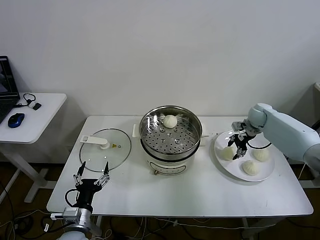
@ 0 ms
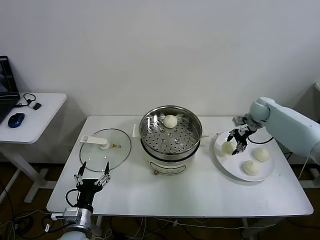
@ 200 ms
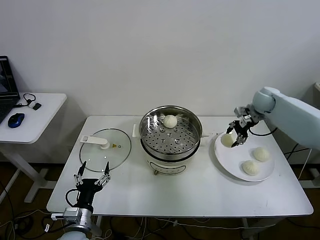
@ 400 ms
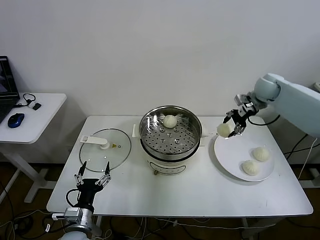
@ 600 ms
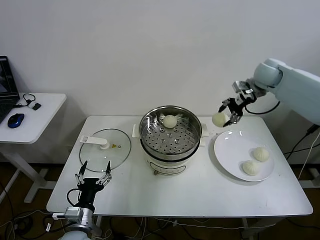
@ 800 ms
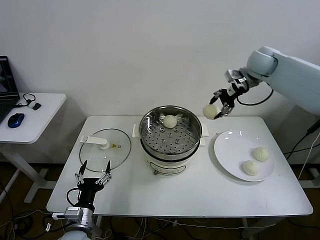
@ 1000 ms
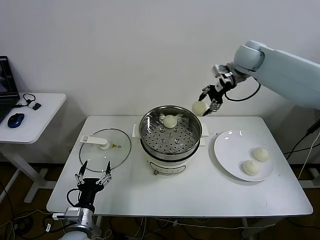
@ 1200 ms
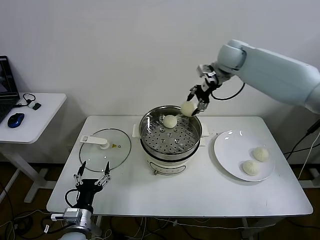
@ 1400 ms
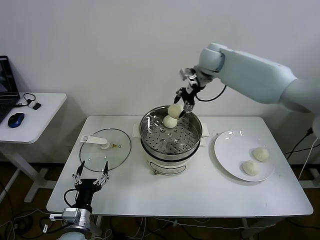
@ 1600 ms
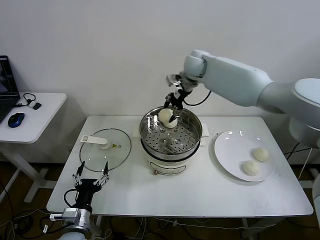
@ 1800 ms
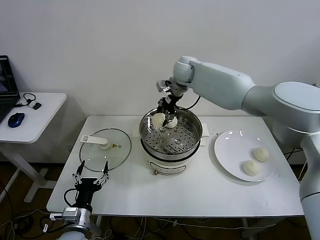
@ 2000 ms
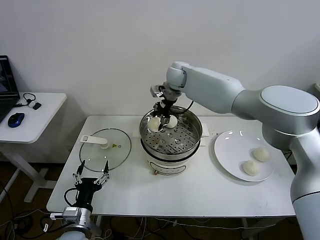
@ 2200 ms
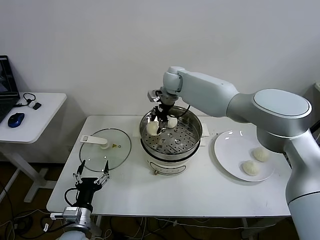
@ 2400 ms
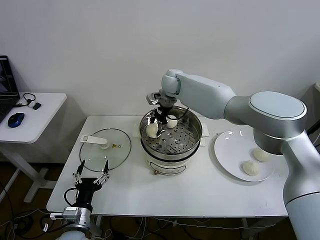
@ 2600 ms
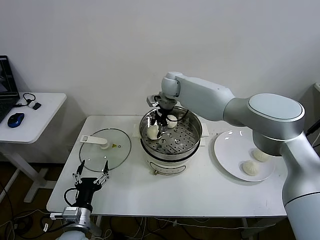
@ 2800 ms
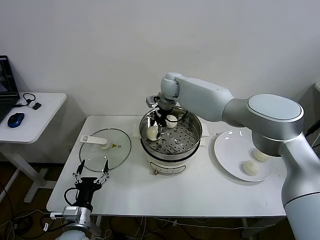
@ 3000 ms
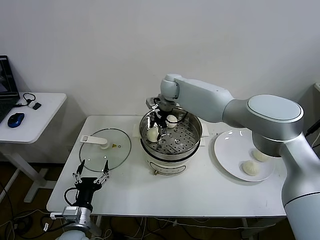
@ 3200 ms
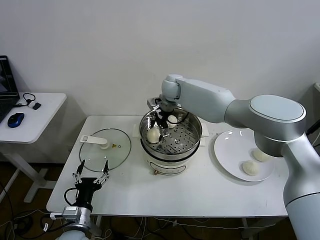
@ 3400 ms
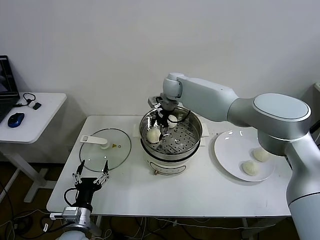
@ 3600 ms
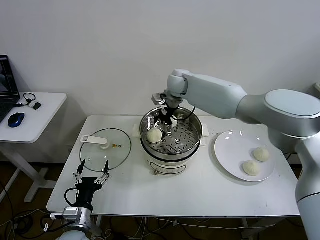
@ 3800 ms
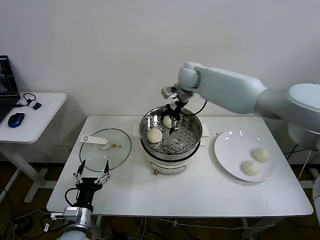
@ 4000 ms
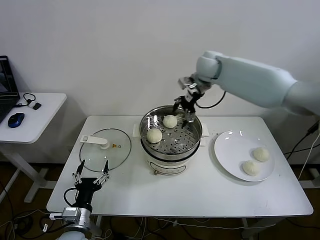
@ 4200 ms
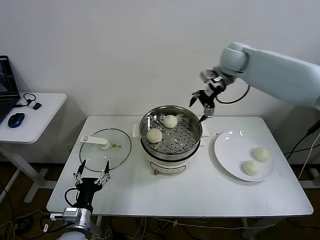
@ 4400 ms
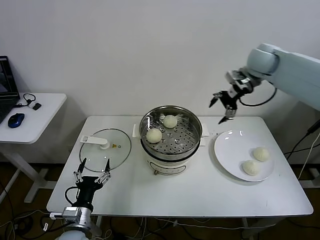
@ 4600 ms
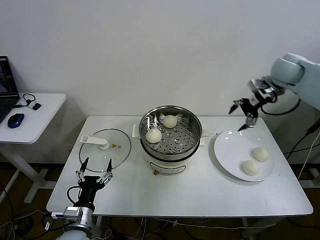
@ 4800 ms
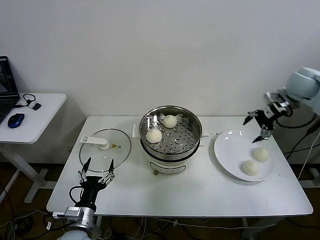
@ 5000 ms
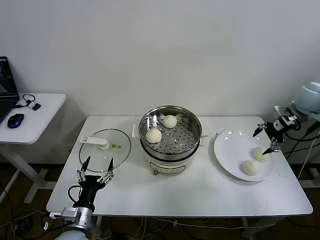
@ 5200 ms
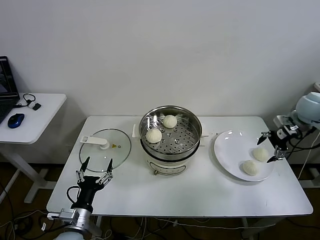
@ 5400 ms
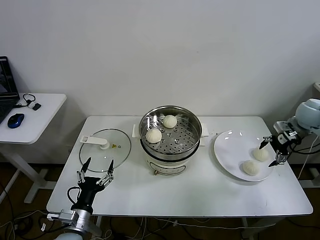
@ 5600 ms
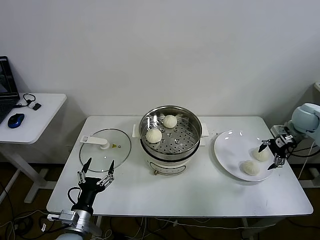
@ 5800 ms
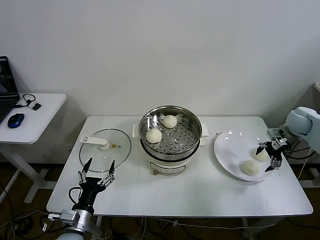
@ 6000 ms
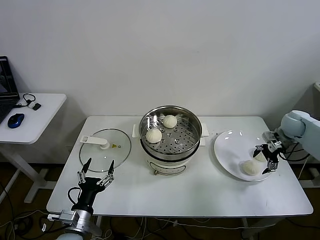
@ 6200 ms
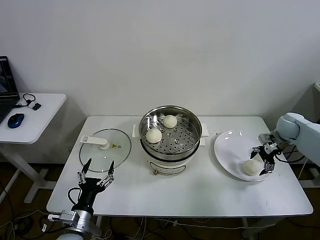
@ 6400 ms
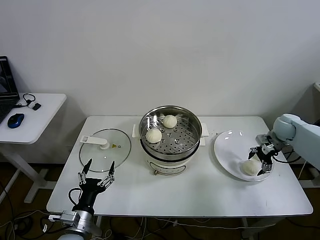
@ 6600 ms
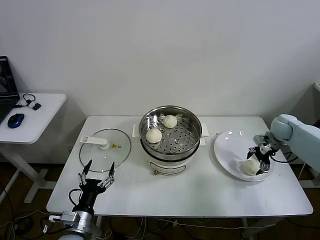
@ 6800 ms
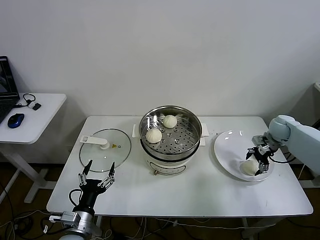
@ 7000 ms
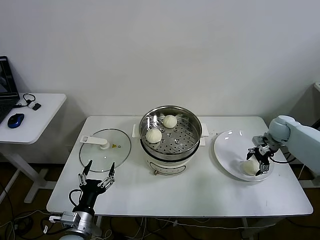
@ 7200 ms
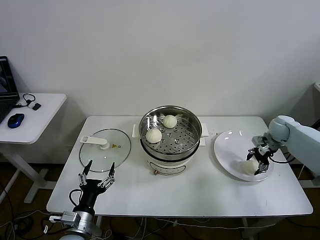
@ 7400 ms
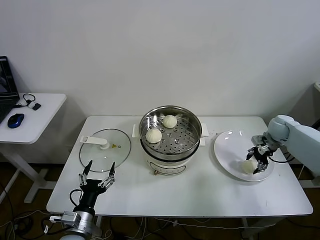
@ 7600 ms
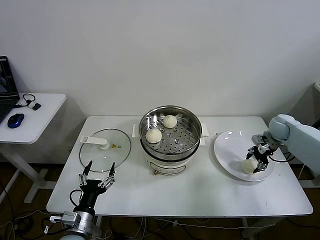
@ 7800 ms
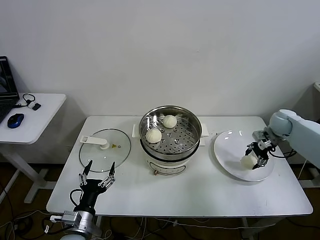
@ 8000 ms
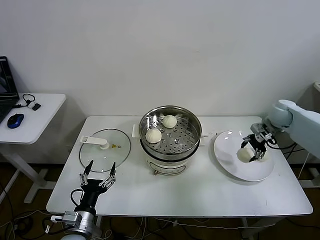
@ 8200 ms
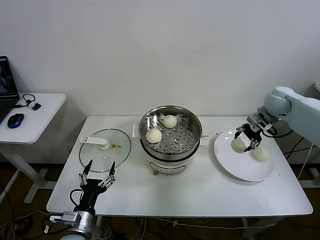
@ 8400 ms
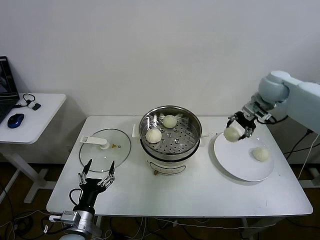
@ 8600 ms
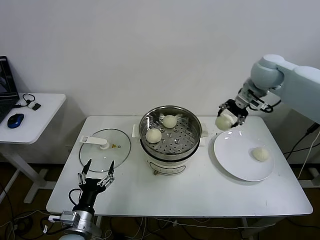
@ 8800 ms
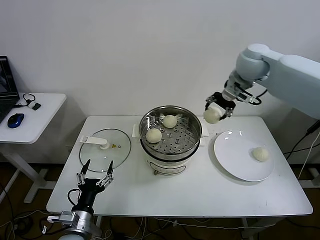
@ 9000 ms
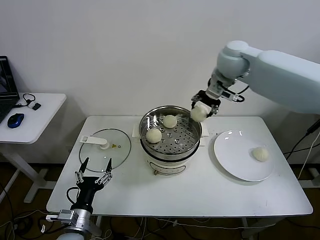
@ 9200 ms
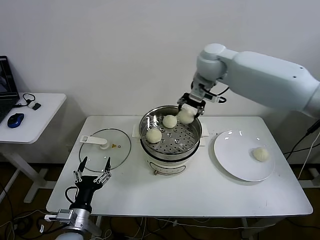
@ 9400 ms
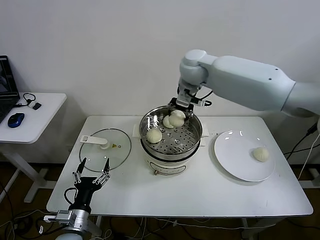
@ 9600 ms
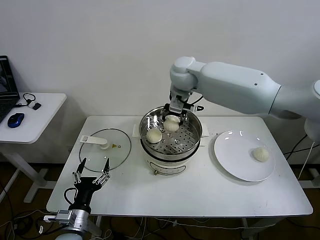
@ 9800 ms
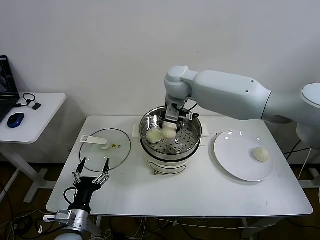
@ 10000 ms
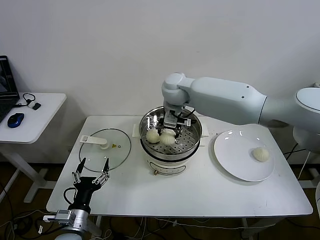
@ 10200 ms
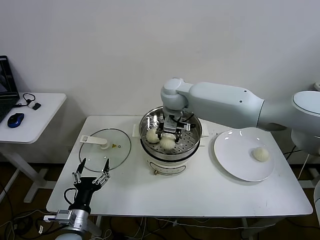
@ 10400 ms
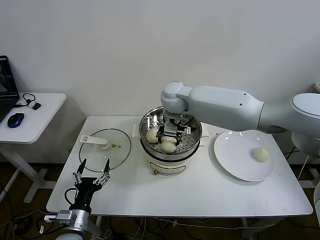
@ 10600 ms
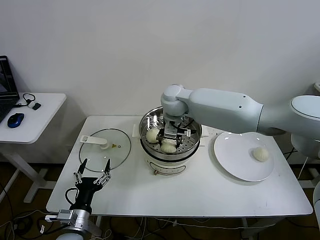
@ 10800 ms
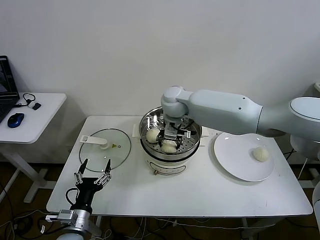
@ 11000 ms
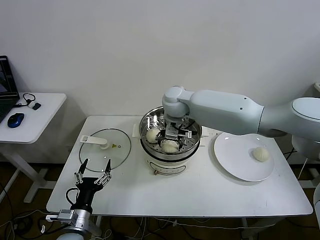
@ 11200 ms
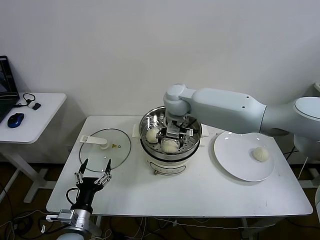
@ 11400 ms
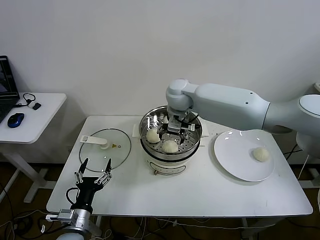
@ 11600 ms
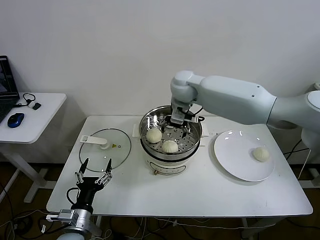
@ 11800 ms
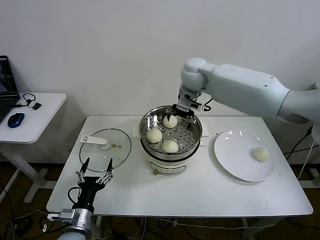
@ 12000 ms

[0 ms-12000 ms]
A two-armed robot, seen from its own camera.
Step, 0 ms to 3600 ms: Place the baozi on the steamer with right gripper.
Step, 3800 ms to 7800 ms: Grasp the baozi in the plate with right gripper.
Step, 8000 ms to 11600 ms: Place the baozi on the steamer with right gripper.
0 ms to 1600 ms: The right gripper heads to the left and upward, covering roughly 30 cm.
1600 ms to 3000 ms: The right gripper goes some 15 cm to the left and downward.
3000 ms to 4400 ms: The right gripper goes approximately 25 cm to the right and upward, and opens its fingers.
4400 ms to 6000 ms: The right gripper heads to the right and downward, covering about 30 cm.
6000 ms to 7600 ms: The right gripper is displaced downward by roughly 5 cm, and closes.
7600 ms to 9000 ms: The right gripper heads upward and to the left, covering some 35 cm.
9000 ms to 10400 ms: The right gripper goes about 25 cm to the left and downward.
10400 ms to 12000 ms: The right gripper is displaced to the right and upward by about 10 cm, and opens its fingers.

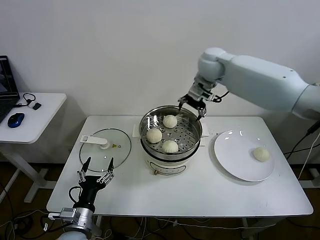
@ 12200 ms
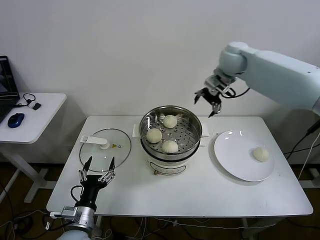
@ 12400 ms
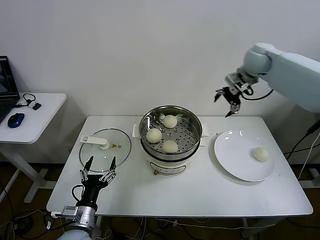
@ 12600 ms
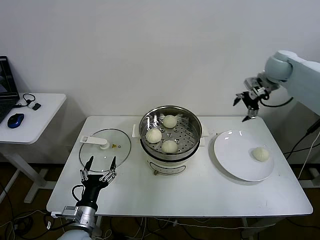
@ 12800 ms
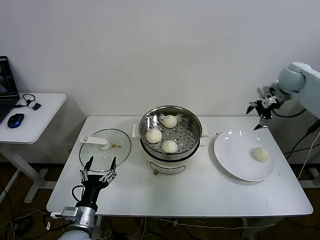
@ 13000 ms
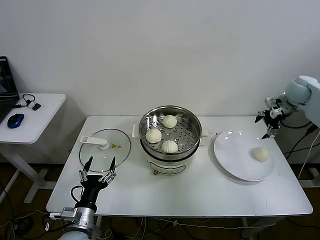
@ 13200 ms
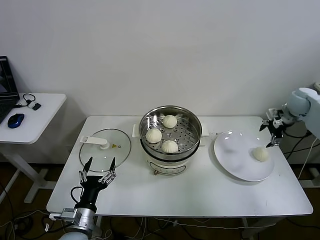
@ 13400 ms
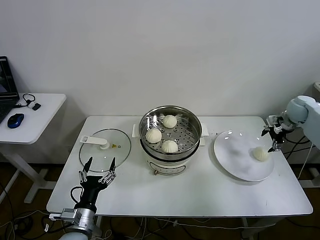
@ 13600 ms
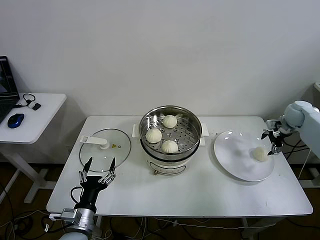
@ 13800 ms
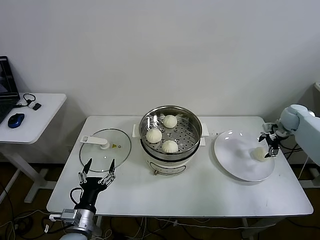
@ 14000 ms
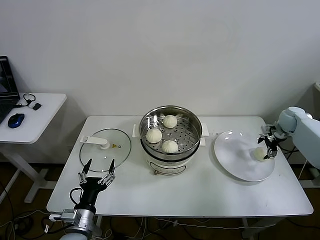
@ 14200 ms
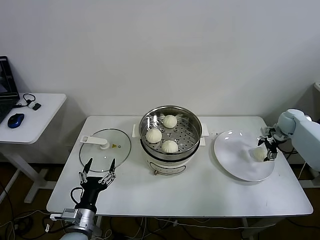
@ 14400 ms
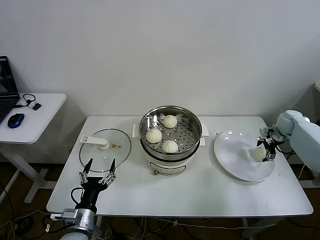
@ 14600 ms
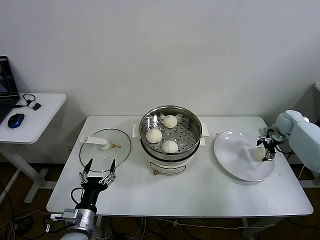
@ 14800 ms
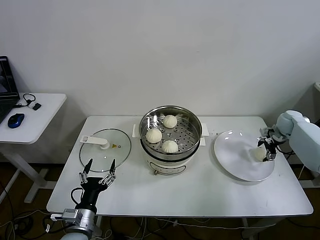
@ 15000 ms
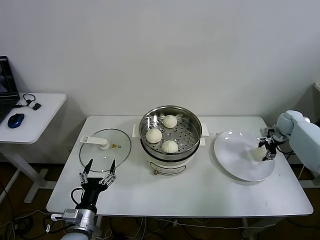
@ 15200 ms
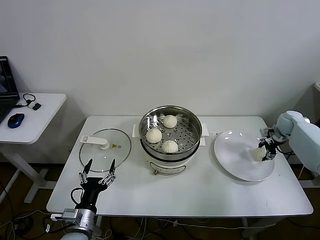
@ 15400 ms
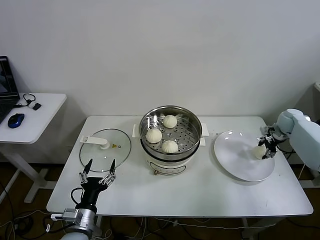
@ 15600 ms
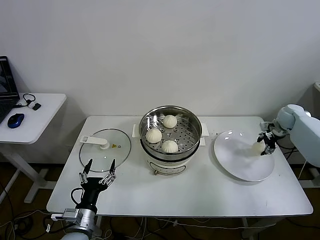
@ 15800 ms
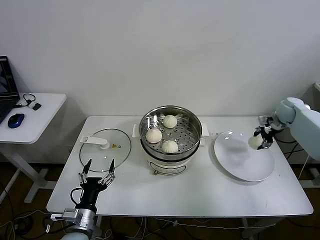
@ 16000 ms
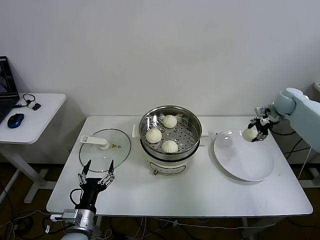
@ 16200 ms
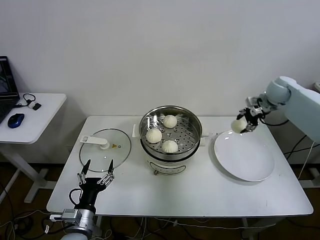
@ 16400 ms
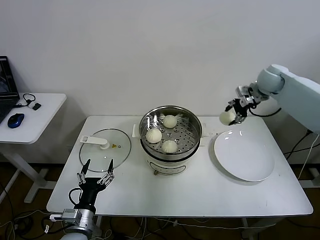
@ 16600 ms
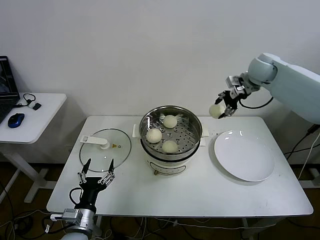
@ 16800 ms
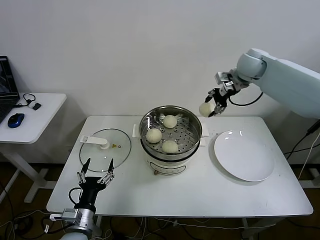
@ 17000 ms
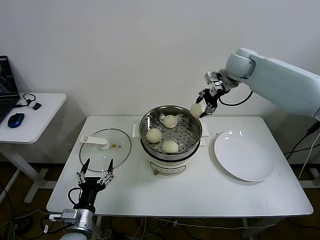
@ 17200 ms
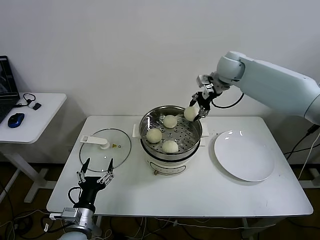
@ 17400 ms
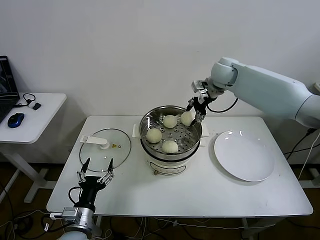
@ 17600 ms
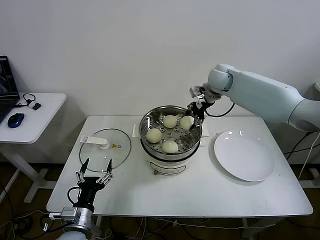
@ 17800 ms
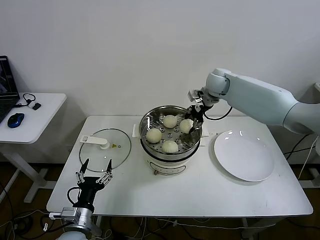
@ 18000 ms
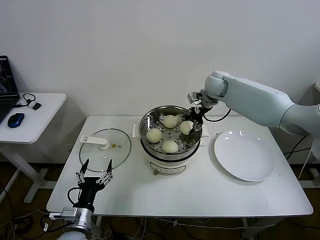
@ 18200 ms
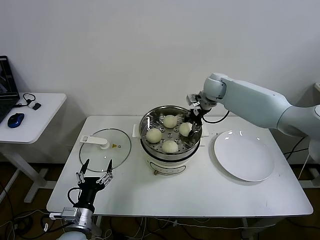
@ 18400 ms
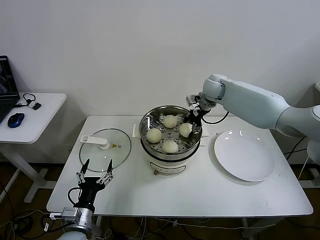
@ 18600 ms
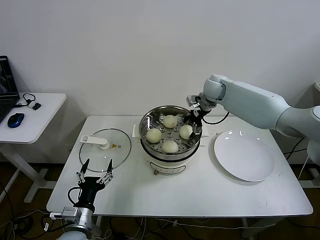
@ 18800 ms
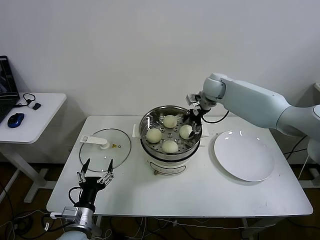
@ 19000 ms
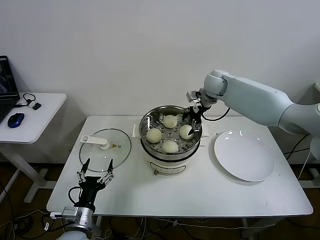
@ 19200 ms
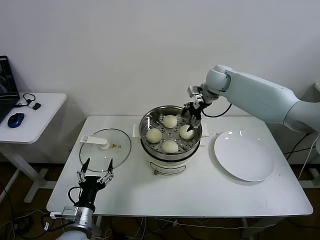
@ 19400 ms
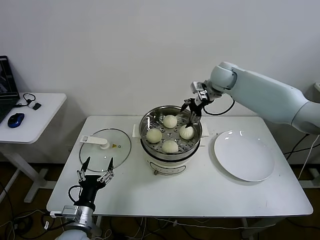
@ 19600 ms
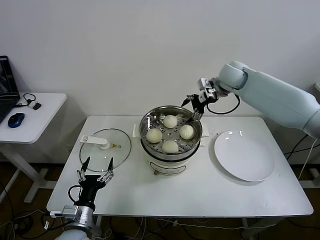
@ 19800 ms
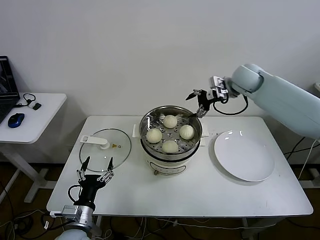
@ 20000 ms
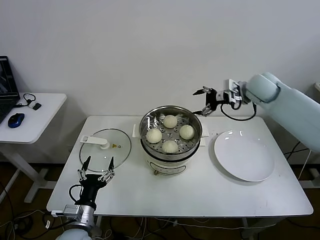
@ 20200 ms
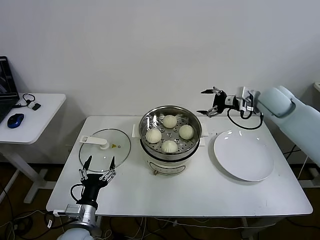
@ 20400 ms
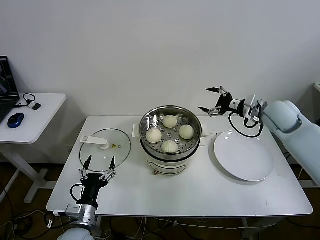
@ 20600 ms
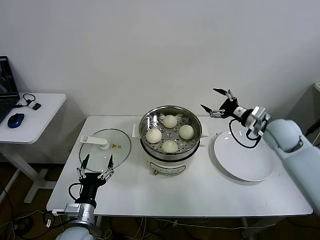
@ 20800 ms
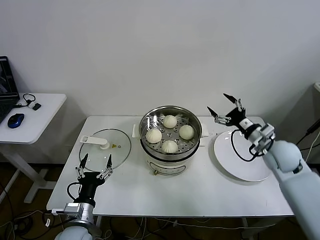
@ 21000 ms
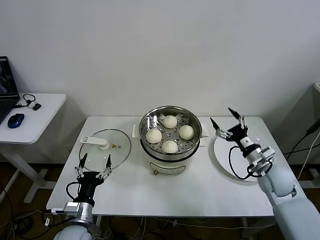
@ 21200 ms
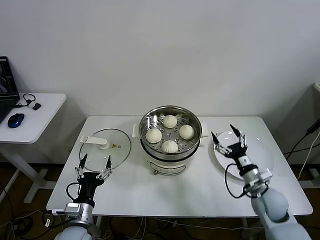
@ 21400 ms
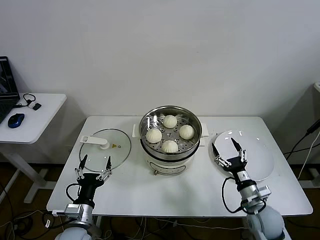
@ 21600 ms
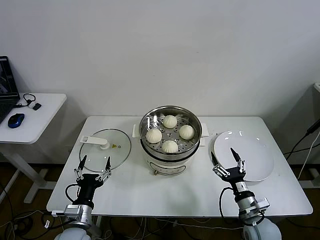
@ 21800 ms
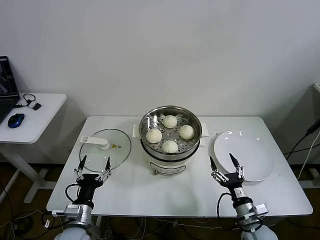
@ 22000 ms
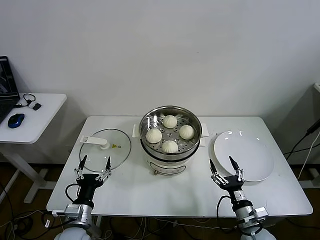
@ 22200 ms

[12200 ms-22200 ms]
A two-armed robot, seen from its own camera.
Step, 12200 ms to 15200 ms: Grasp the baozi in the plate with right gripper.
Step, 15400 ms to 19600 ms: Place the baozi on the steamer with right gripper.
12200 ms to 13600 ms: The right gripper shifts approximately 40 cm to the right and downward.
13600 ms to 15000 ms: The right gripper moves downward, some 10 cm.
15000 ms to 16400 ms: The right gripper moves upward and to the left, roughly 15 cm, and closes its fingers.
16400 ms to 18000 ms: The right gripper is displaced to the left by about 20 cm.
18000 ms to 19400 ms: The right gripper opens its fingers.
19400 ms to 20800 ms: The right gripper travels backward, to the right and downward by approximately 25 cm.
20800 ms to 22200 ms: The right gripper shifts roughly 35 cm backward and downward.
